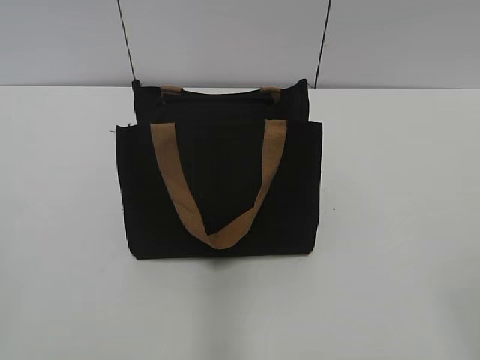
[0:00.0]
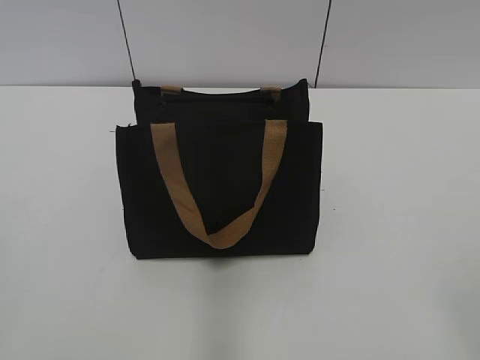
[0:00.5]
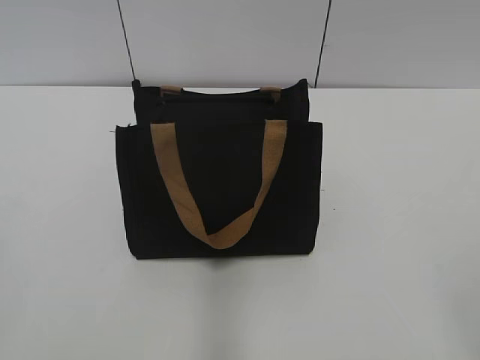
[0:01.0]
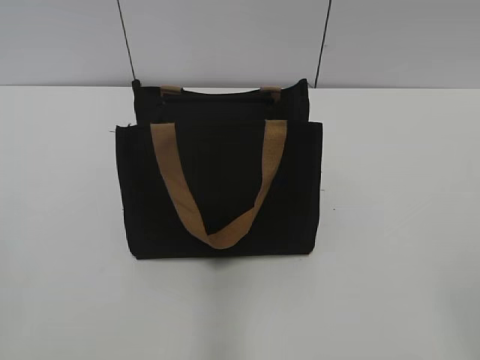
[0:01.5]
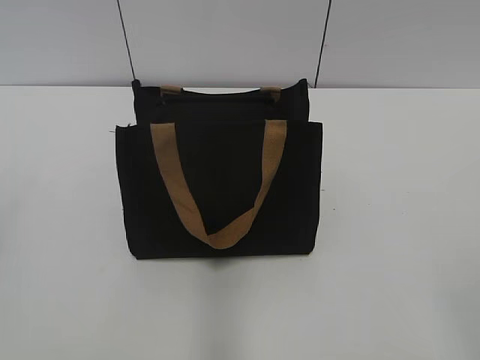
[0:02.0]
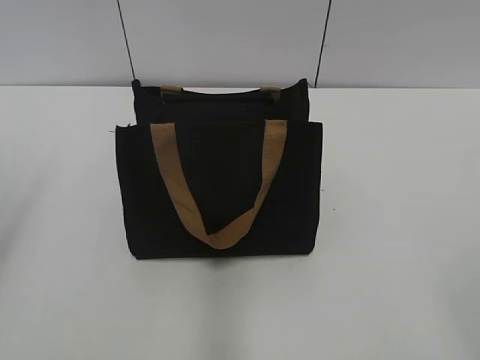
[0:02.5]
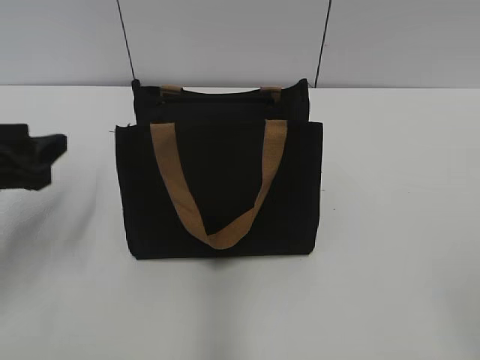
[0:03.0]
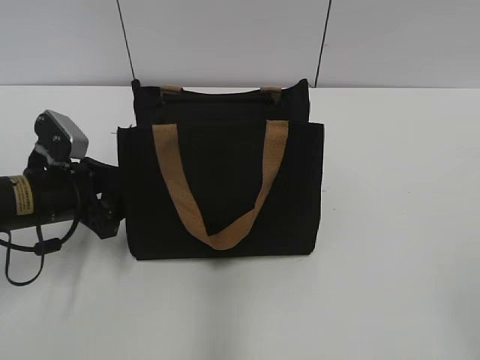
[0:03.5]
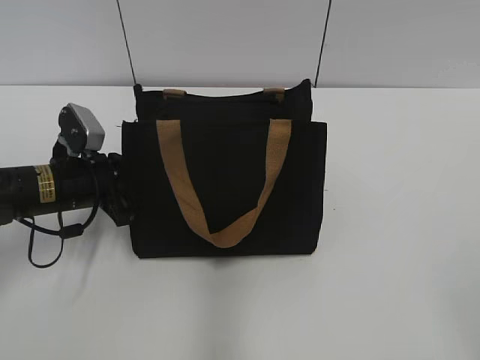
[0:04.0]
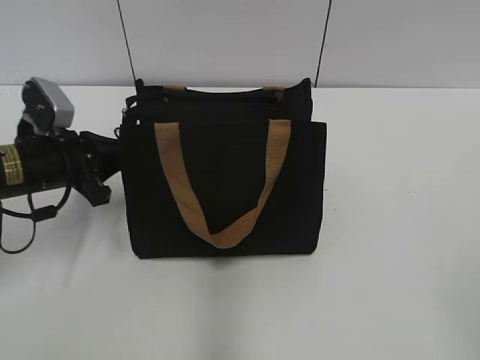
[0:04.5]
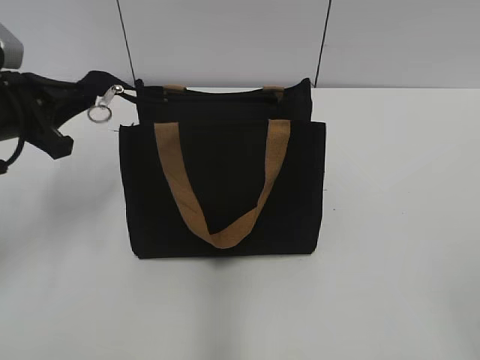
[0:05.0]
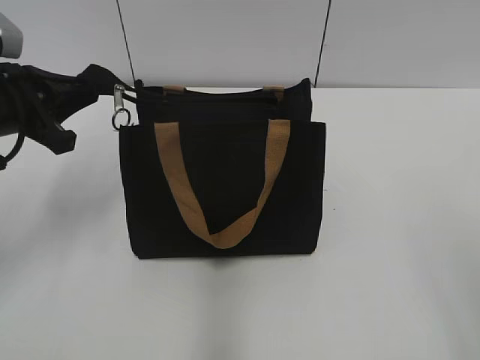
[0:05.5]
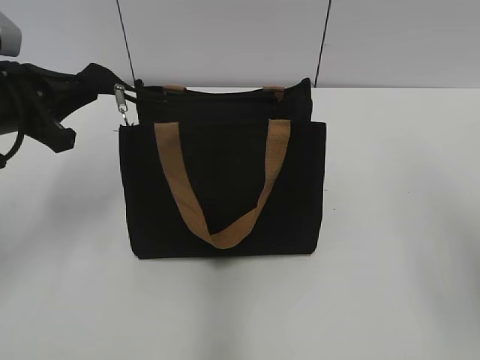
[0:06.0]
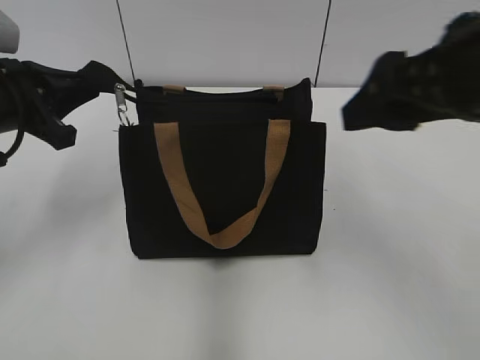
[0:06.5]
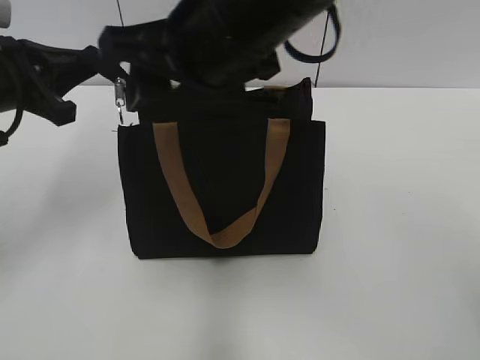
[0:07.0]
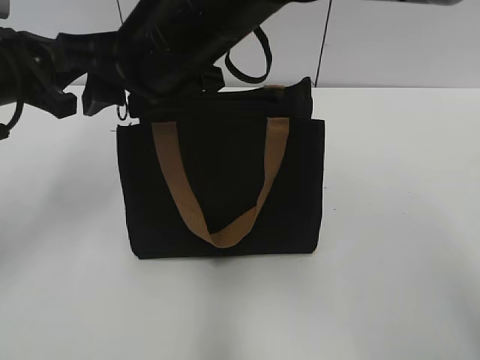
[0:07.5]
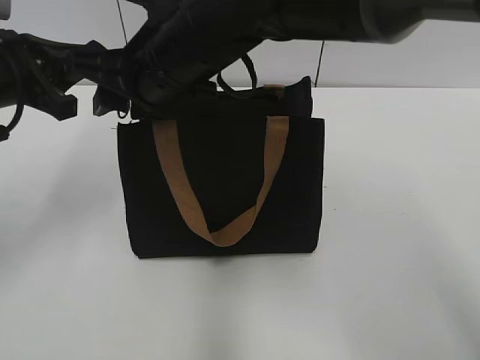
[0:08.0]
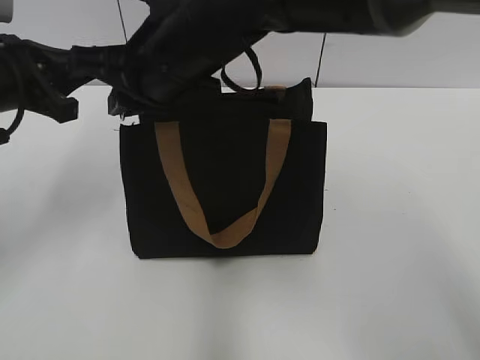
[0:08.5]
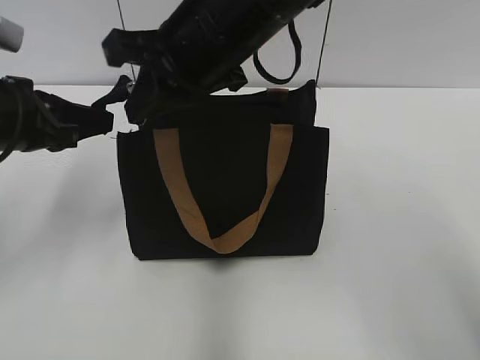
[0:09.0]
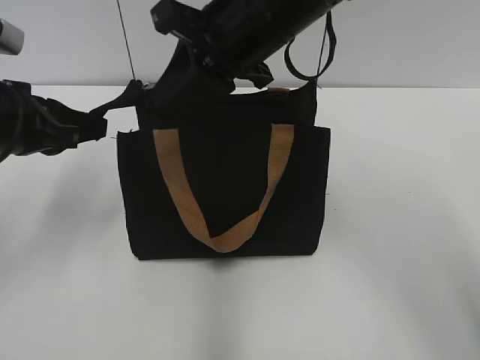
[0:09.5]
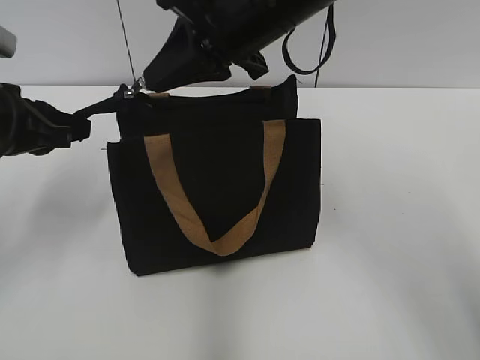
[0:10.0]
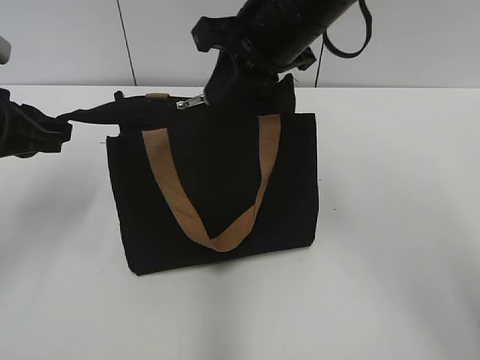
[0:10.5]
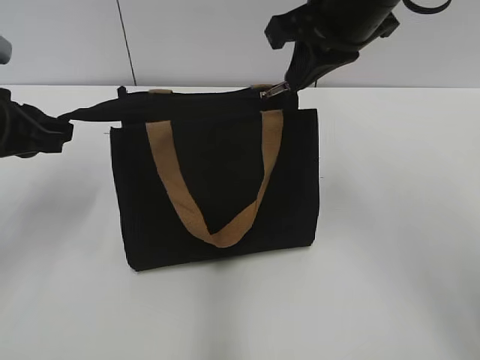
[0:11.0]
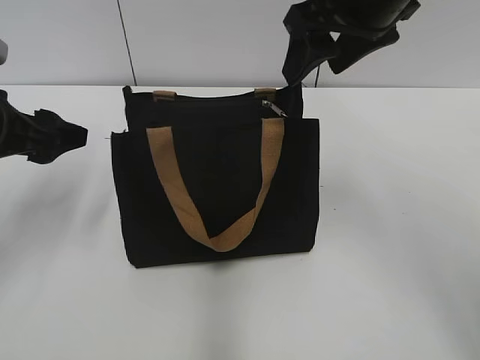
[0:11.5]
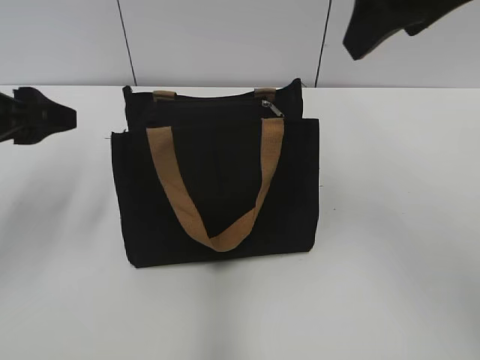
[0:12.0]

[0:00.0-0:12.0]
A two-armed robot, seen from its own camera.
Step, 0:00.0 to 0:11.0: Zip up the bag with your right hand.
0:02.0 to 0:04.0: The left gripper shifts some 40 cm forward and downward, and opens and closes again.
0:04.0 to 0:06.0: The left gripper is displaced upward by about 15 cm. The right gripper heads forward and upward, covering roughly 15 cm.
0:06.0 to 0:08.0: The right gripper goes roughly 35 cm to the left and forward, and closes its fingers.
0:08.0 to 0:10.0: The right gripper travels to the right by about 10 cm, and closes its fingers.
0:10.0 to 0:12.0: The left gripper opens its fingers. Meanwhile the right gripper goes approximately 15 cm to the right and upward, and opens its fingers.

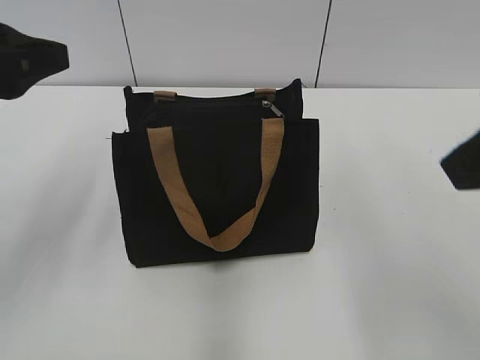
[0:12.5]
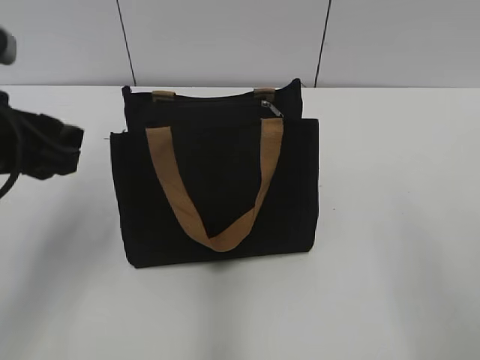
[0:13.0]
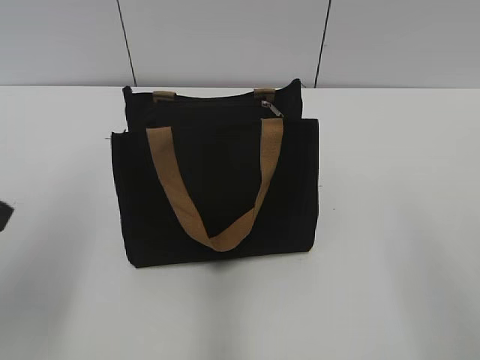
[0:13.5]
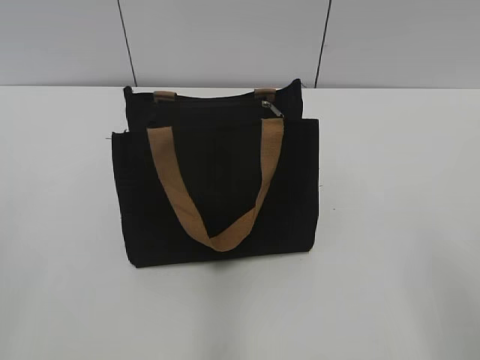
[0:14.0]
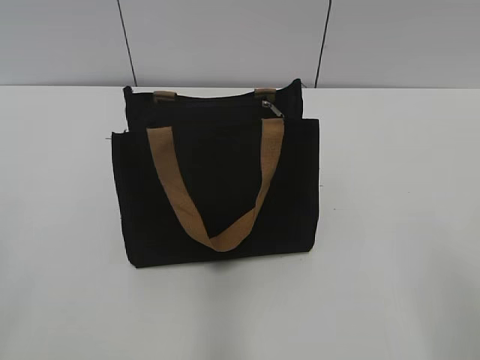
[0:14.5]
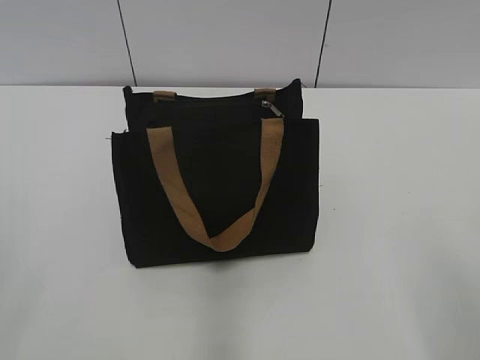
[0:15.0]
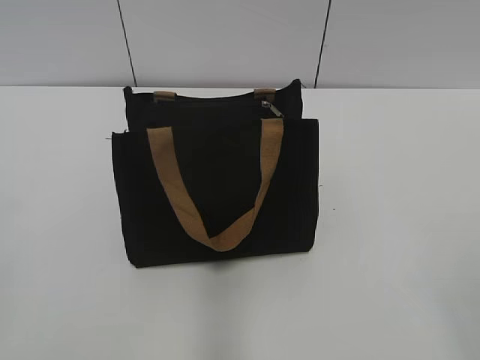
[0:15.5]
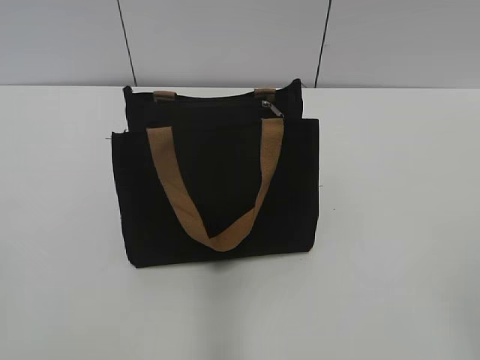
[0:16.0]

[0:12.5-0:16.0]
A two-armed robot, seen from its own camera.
0:12.5 to 0:14.5: The left gripper heads backward, covering some 20 cm. The right gripper heads backward, downward and to the right, covering approximately 20 cm.

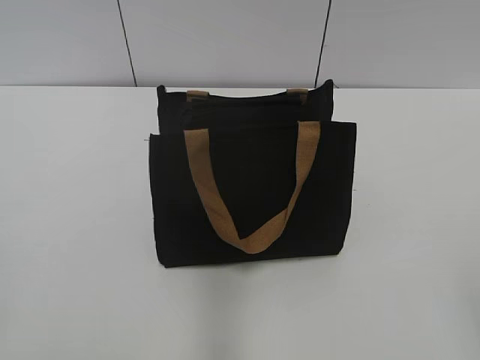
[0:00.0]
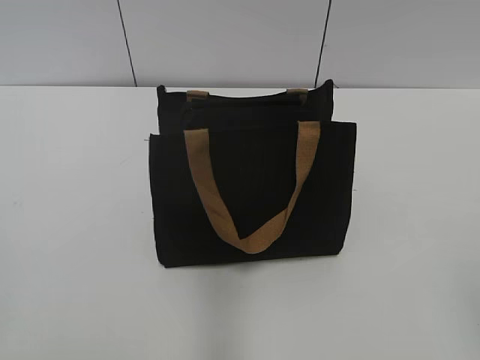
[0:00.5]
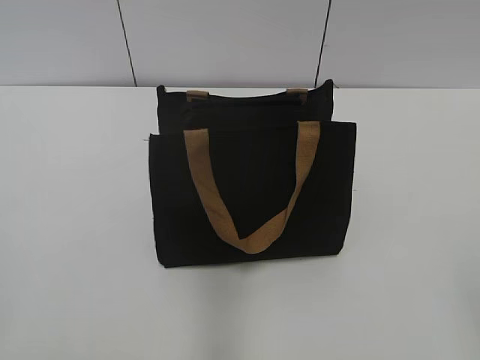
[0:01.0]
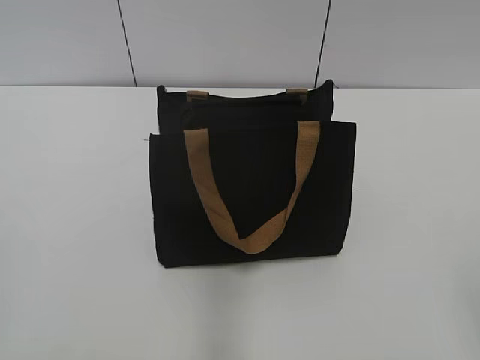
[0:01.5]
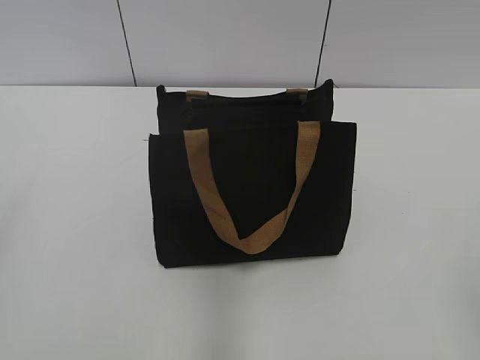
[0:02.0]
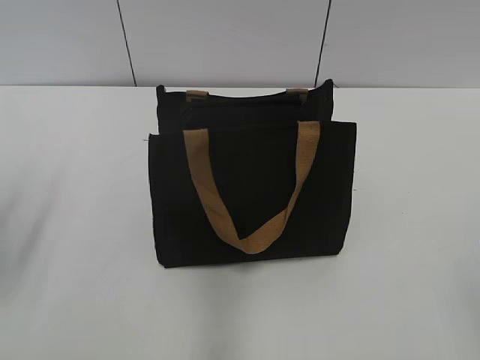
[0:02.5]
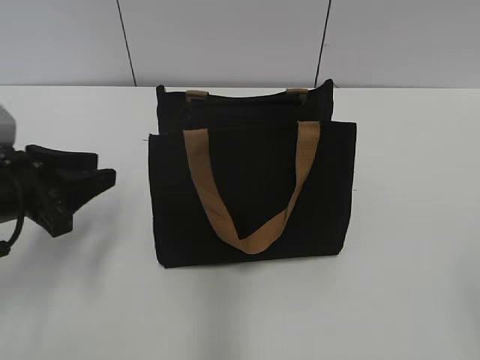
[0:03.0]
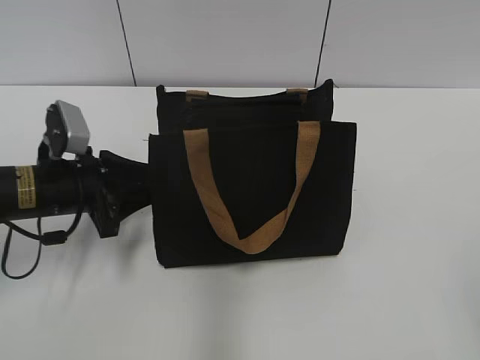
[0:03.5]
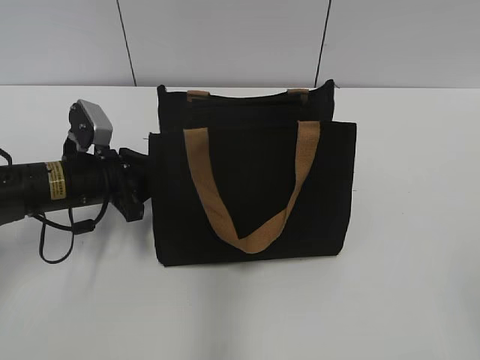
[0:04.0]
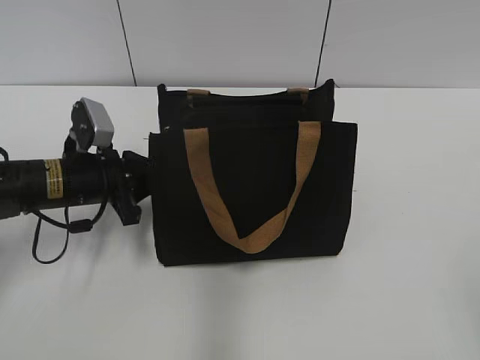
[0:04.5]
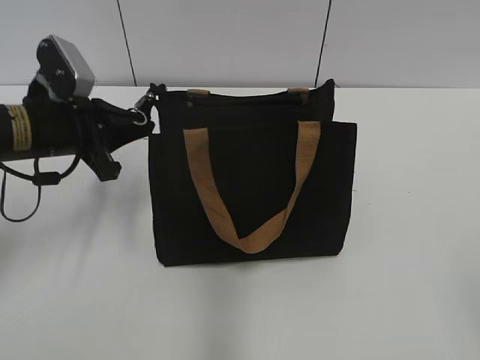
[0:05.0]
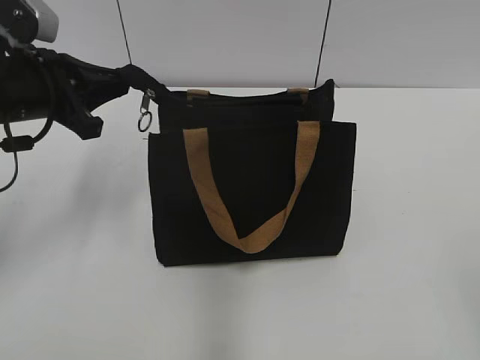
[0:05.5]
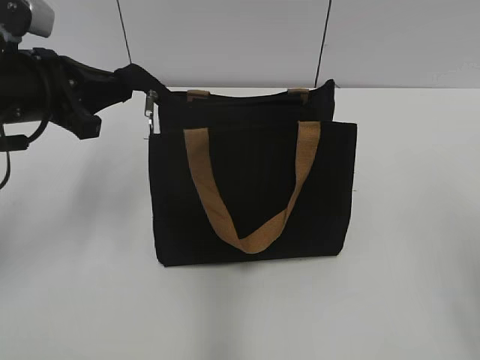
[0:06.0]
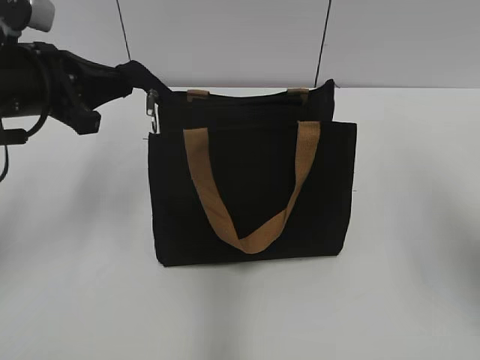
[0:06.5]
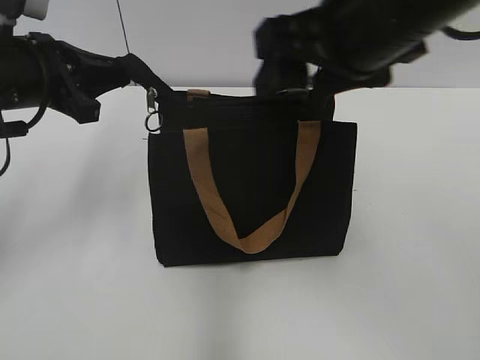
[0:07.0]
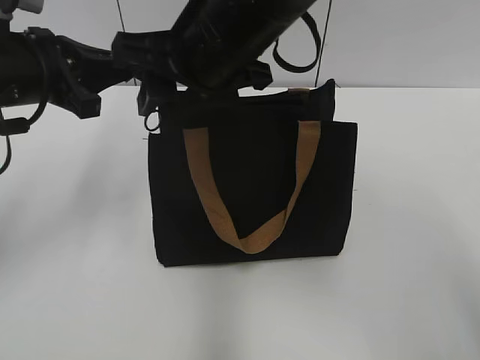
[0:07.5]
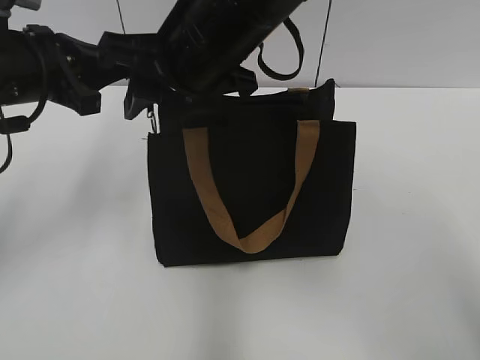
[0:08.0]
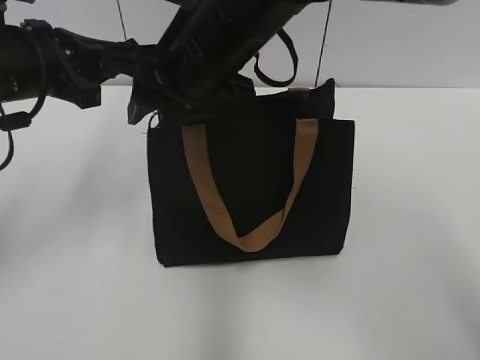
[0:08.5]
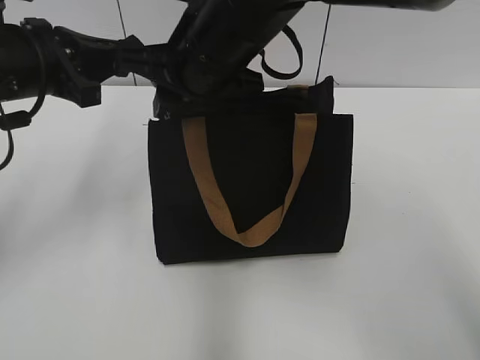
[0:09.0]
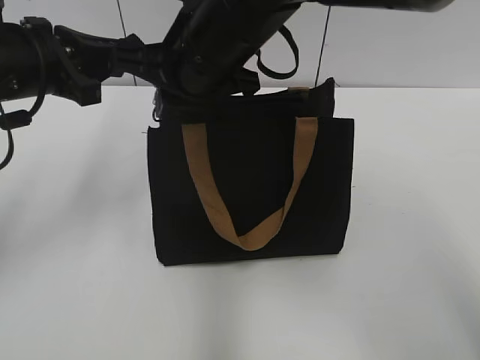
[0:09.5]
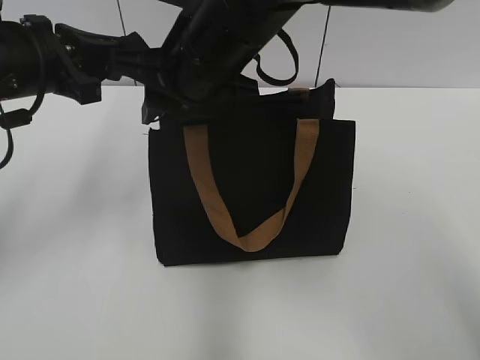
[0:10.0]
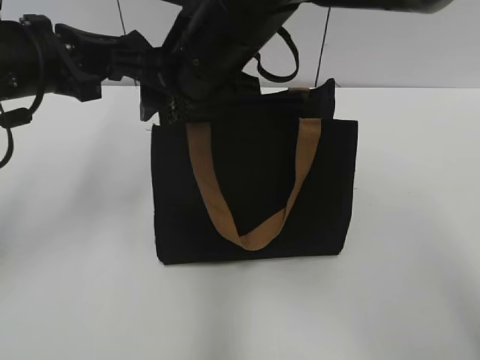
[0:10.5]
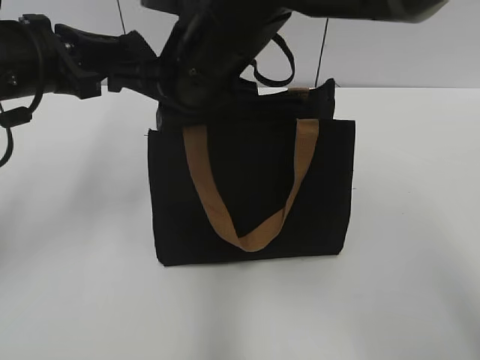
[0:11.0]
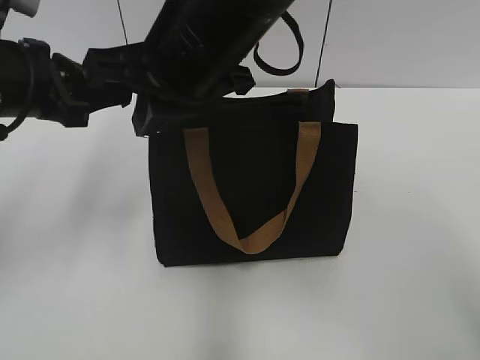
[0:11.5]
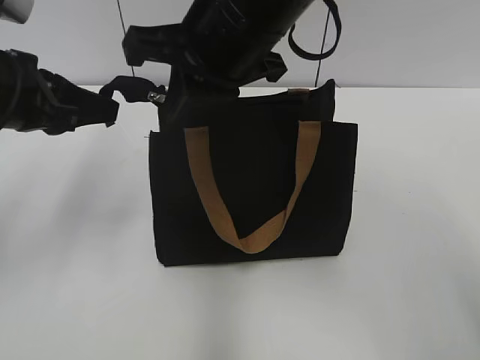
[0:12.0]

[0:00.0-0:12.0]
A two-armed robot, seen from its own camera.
0:02.0 to 0:04.0: The left gripper shifts roughly 35 cm forward, downward and to the right.
0:04.0 to 0:06.0: The left gripper travels upward by roughly 15 cm, and closes up.
0:06.0 to 0:08.0: The right gripper goes roughly 40 cm to the left and forward.
0:08.0 to 0:10.0: The right gripper closes and opens again.
0:10.0 to 0:12.0: The right gripper ends up about 5 cm from where it was, and closes up.
